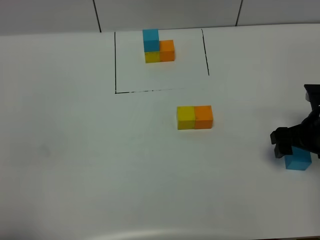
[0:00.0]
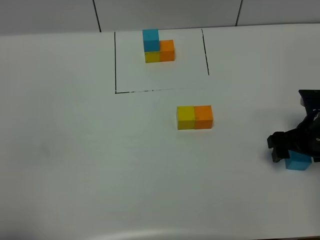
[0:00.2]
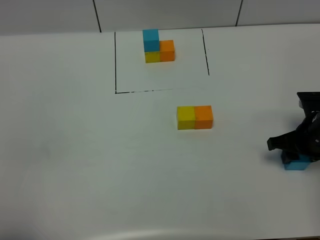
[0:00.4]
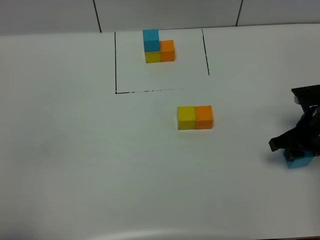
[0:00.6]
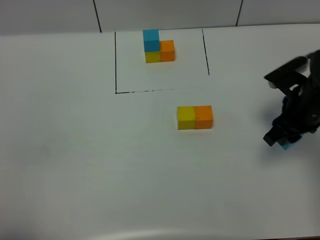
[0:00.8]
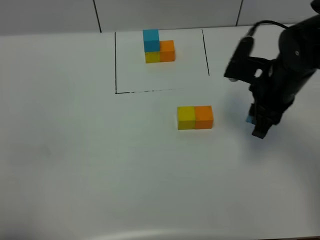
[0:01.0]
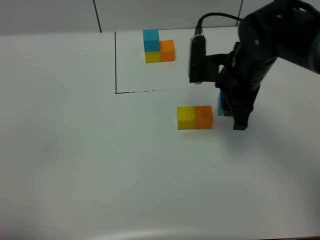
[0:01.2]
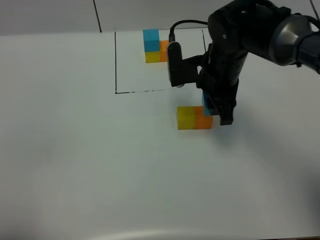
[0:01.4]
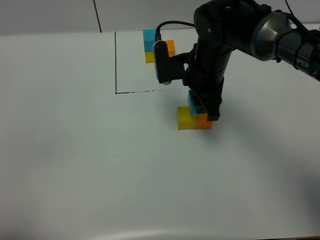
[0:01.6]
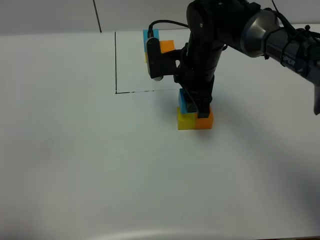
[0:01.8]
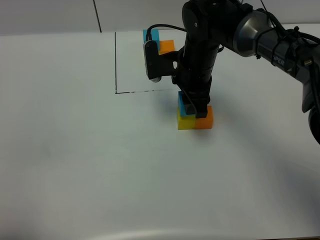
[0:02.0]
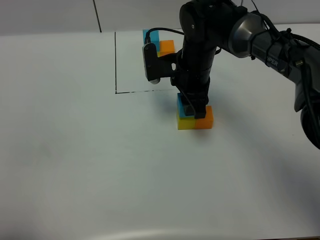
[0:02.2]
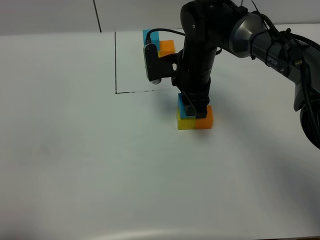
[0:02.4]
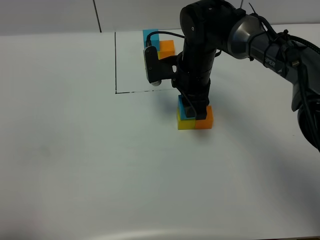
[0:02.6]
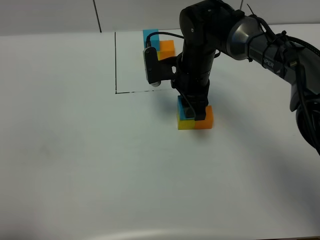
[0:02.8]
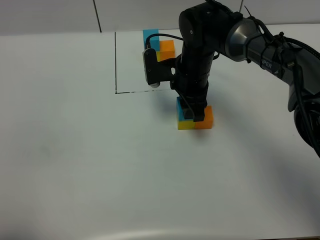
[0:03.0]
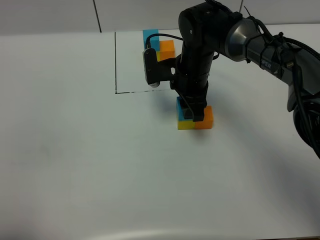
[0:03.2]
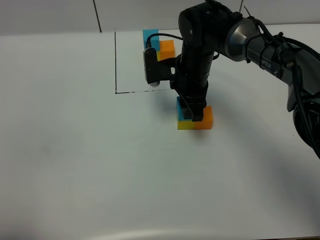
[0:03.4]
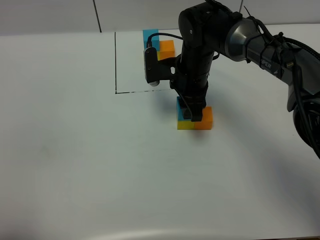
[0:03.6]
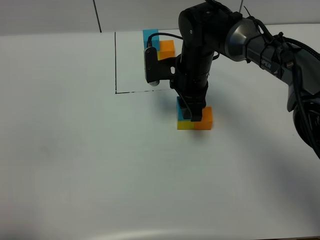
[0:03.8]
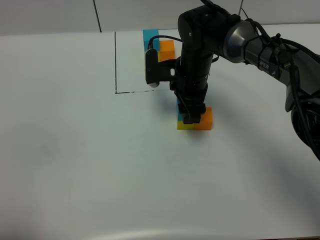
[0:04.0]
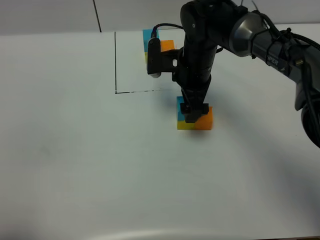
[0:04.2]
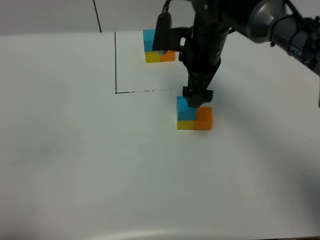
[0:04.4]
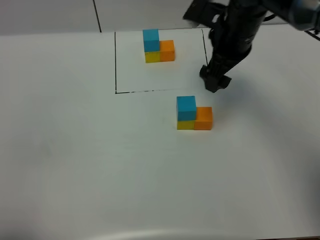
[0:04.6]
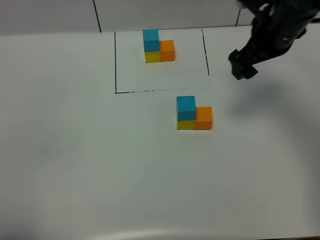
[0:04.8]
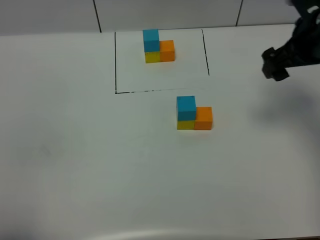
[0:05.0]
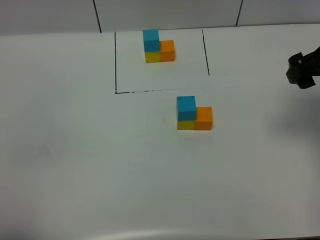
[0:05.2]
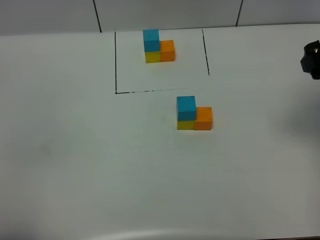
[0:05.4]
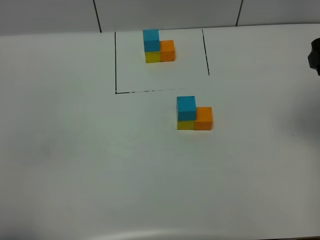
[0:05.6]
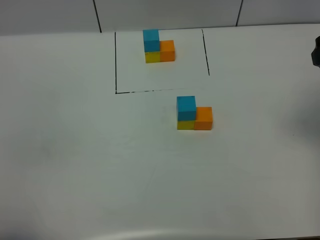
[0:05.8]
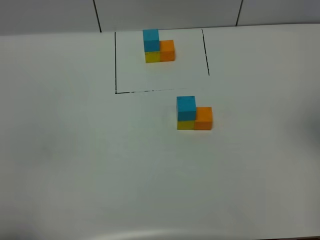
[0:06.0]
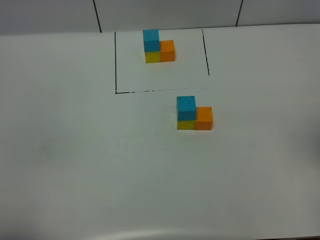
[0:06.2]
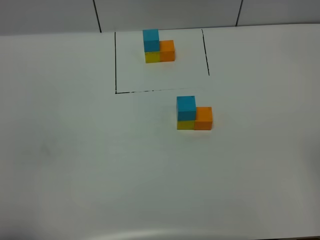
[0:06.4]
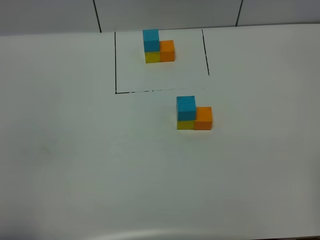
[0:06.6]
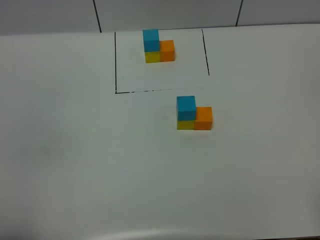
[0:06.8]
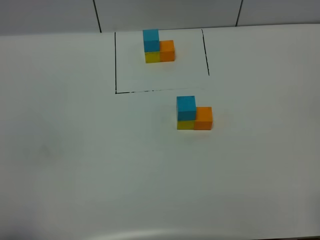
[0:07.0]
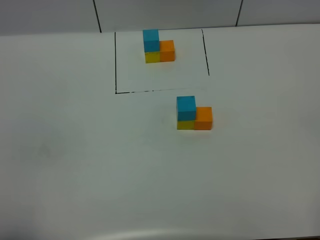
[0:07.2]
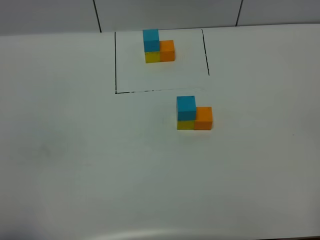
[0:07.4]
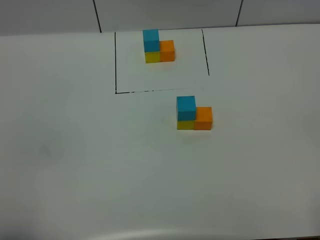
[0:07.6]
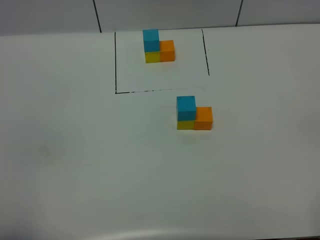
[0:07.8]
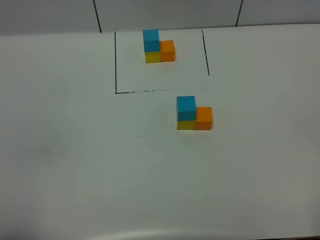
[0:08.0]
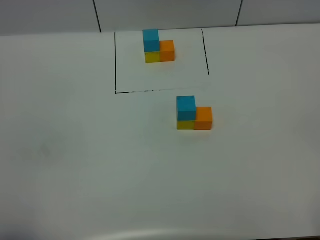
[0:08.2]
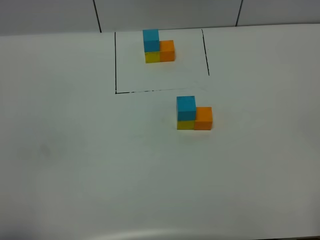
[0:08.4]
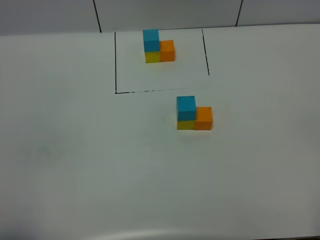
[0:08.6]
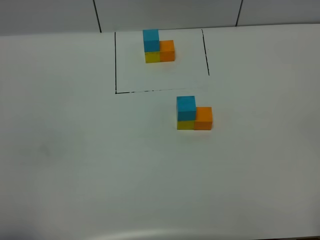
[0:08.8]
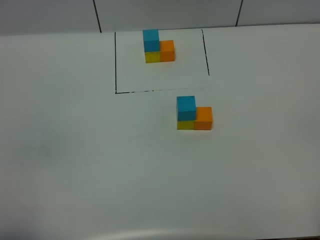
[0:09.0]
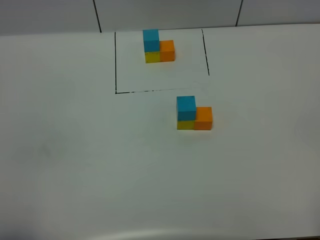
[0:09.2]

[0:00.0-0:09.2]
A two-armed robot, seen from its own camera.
Task of the whole recording: According to the building block template in front, assemble the scattered blocks together.
Step, 0:00.0 to 0:04.2: Put the blue cube on the yellow cube.
0:00.0 to 0:01.6: The right gripper travels to the left and forward by some 25 cm, and closes.
0:01.6 to 0:03.0: The grippers stay close to where they were, moving slightly.
0:03.0 to 0:04.6: The right gripper goes about 15 cm upward and to the right, and opens its fingers.
0:04.6 to 0:06.2: The right gripper shifts some 30 cm backward, to the right and upward.
0:07.6 to 0:09.2: Both grippers stay put.

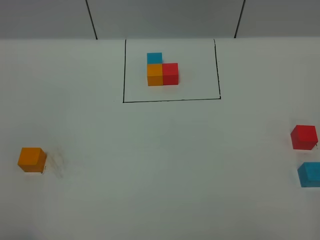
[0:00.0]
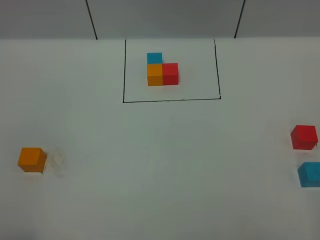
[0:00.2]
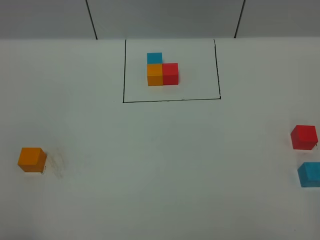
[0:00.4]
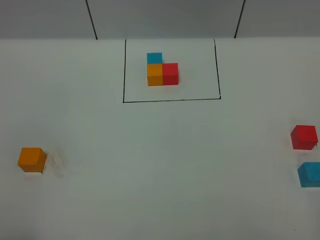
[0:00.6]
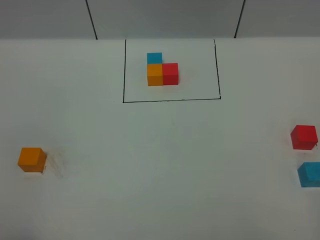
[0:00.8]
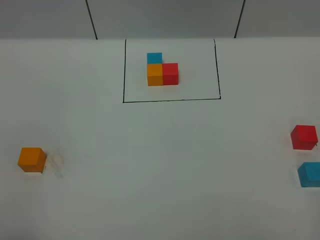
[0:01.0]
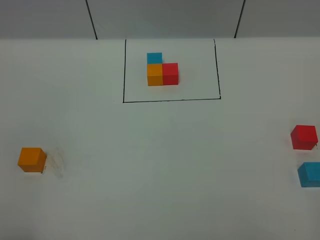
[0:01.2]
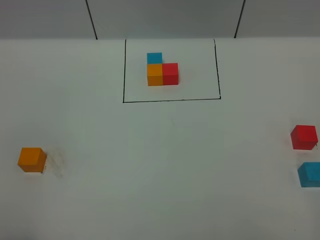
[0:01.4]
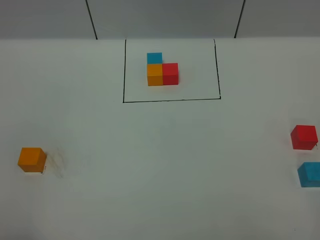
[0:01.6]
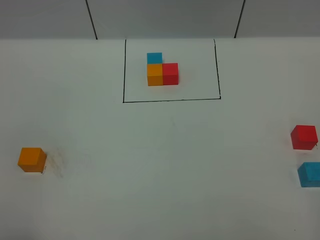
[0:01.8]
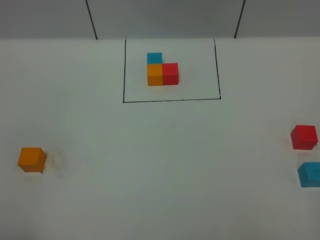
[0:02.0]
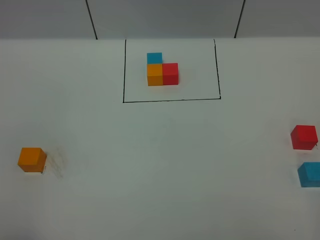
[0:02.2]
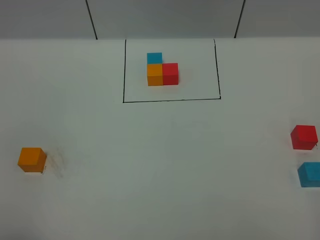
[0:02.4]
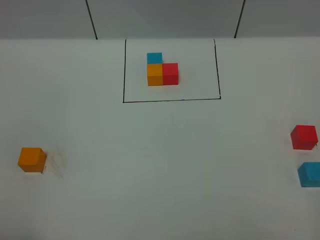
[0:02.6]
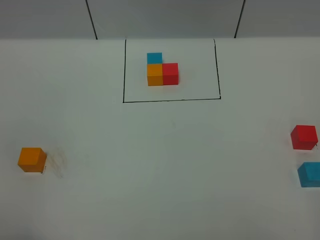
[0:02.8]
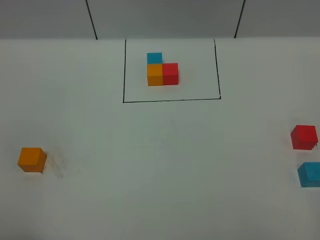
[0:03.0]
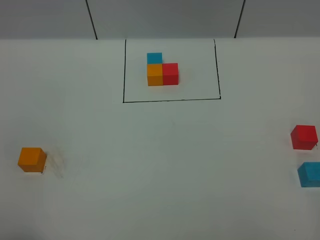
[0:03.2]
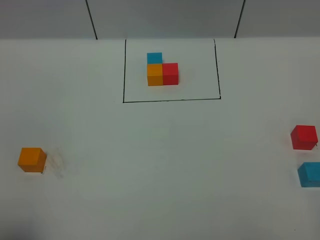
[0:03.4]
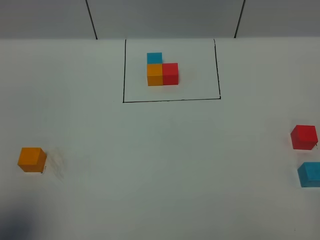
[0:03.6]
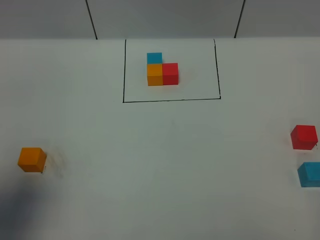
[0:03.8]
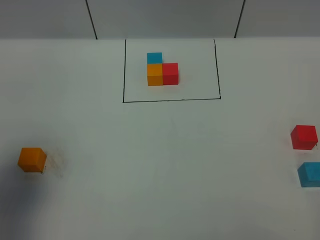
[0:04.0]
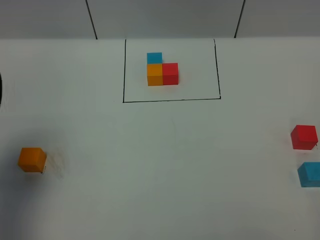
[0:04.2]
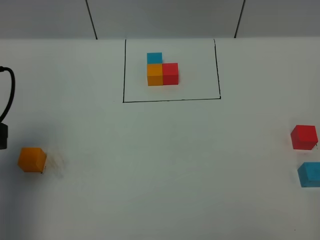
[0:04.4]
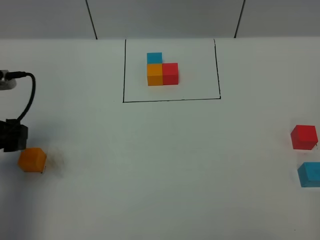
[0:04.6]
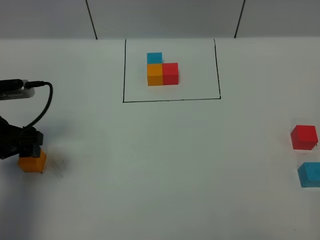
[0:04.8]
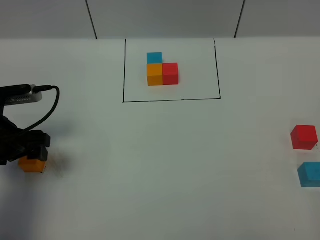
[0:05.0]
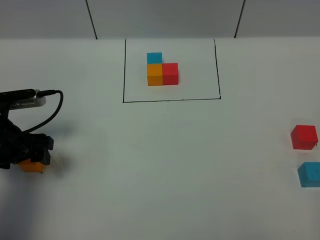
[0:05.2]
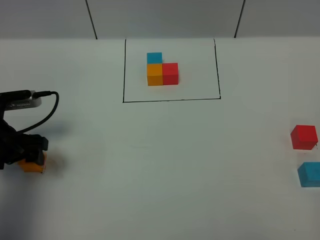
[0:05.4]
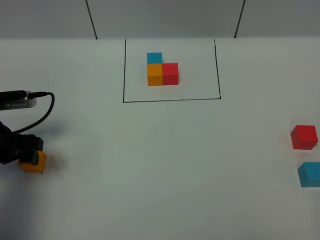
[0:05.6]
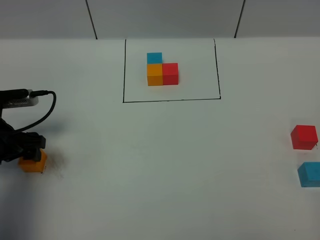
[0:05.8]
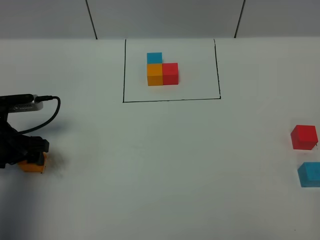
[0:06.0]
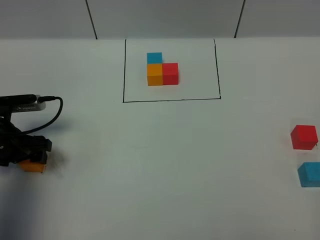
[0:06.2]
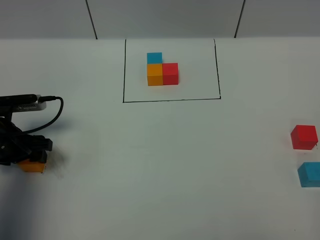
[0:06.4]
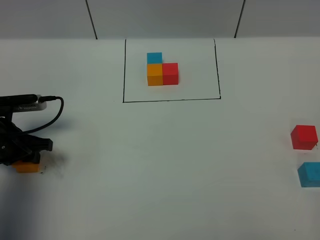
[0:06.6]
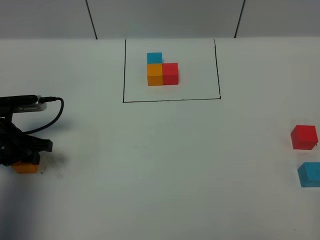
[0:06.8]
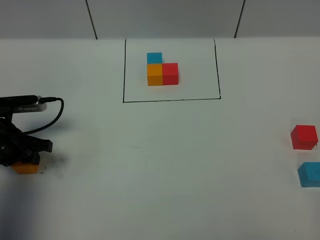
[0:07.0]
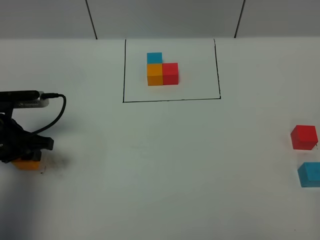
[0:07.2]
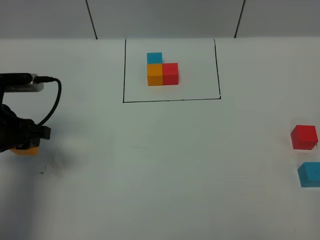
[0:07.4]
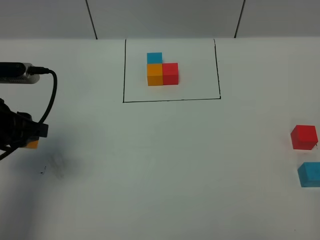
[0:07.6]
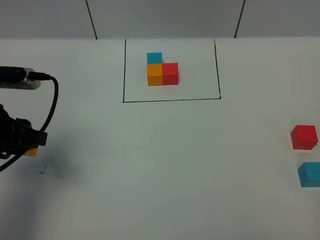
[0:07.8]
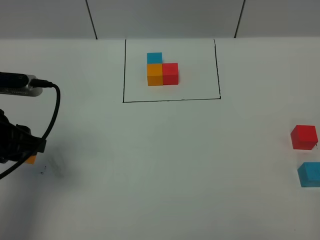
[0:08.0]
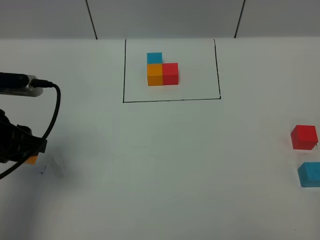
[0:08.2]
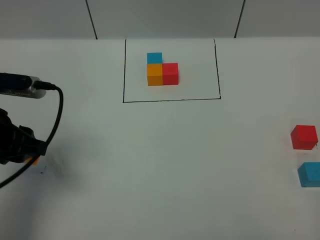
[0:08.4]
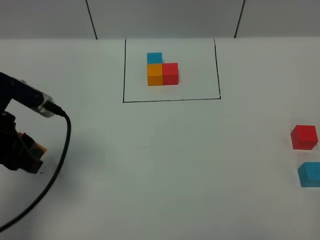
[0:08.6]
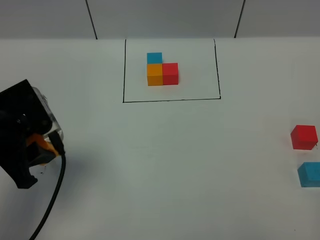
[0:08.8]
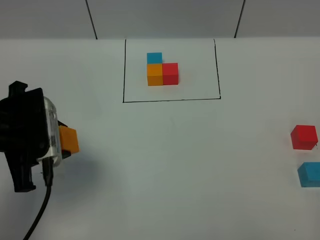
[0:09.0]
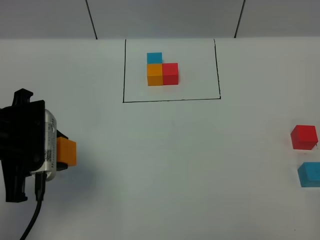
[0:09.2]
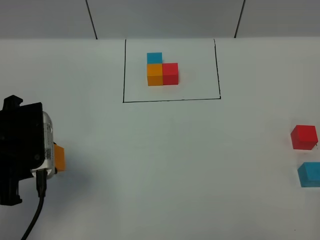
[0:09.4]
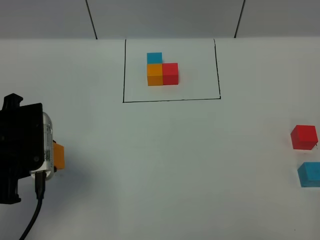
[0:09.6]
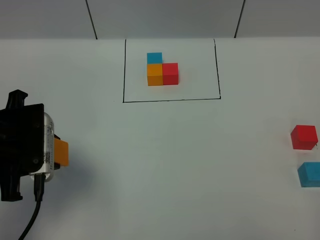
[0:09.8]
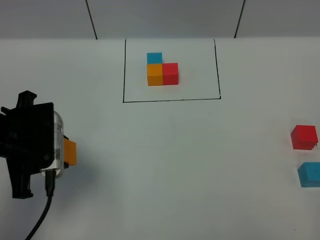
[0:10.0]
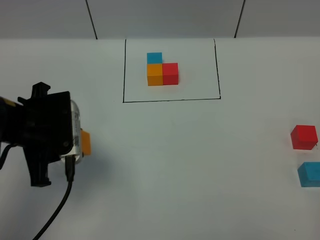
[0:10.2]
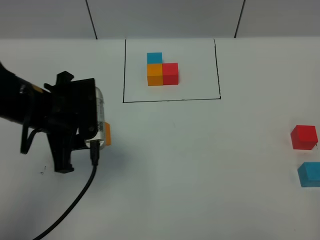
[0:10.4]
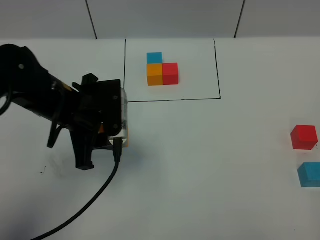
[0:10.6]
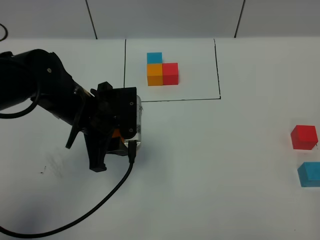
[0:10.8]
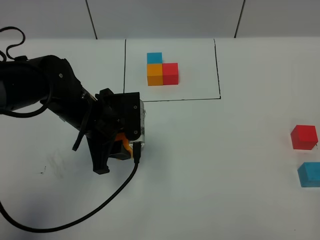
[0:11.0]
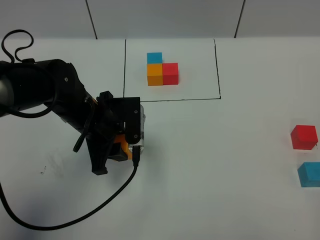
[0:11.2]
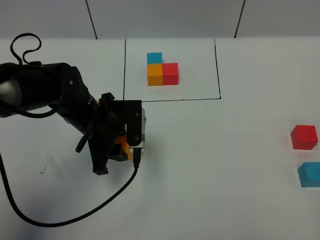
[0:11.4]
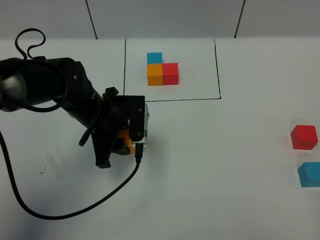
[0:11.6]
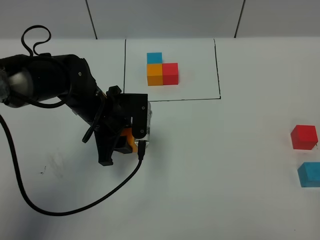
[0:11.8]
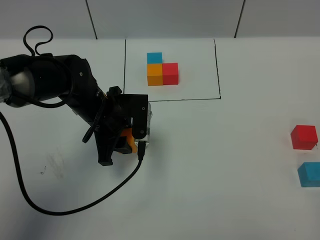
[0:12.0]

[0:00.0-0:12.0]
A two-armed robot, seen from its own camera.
Task of the whole recording: According to the building block template in front, assemble the scattered blocks together.
0:00.0 to 0:01.6: Both grippers stay put.
0:03.0 to 0:04.4: The left gripper shifts approximately 25 cm forward.
0:04.4 to 0:06.0: The left gripper heads downward and forward, covering some 10 cm.
0:06.0 to 0:07.6: The left gripper is displaced upward by approximately 10 cm, and closes up.
0:09.0 to 0:10.4: The left gripper heads to the right, covering some 5 cm.
0:10.4 to 0:12.0: The left gripper travels downward, forward and to the right by roughly 10 cm.

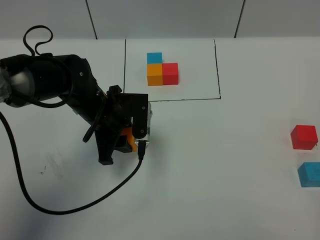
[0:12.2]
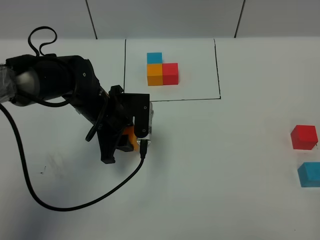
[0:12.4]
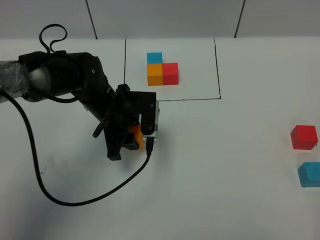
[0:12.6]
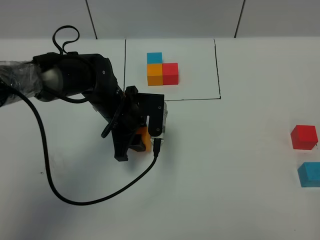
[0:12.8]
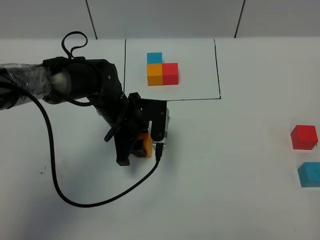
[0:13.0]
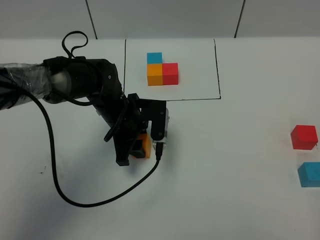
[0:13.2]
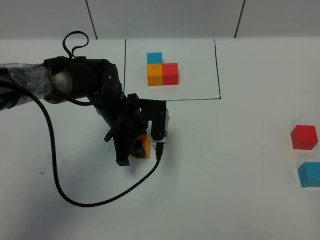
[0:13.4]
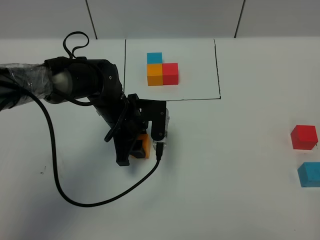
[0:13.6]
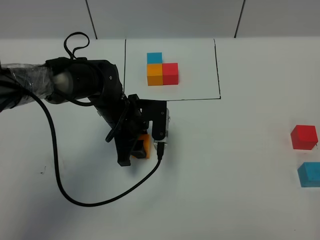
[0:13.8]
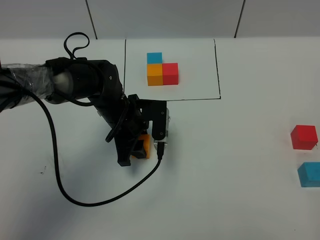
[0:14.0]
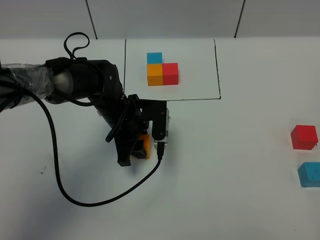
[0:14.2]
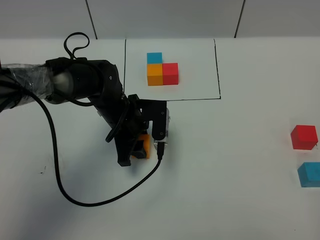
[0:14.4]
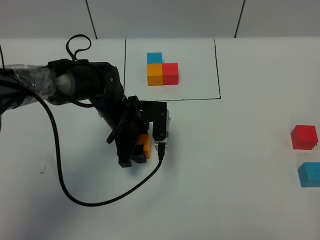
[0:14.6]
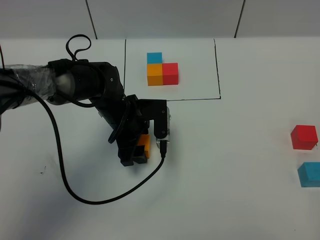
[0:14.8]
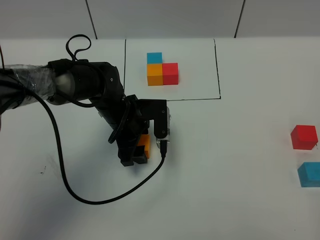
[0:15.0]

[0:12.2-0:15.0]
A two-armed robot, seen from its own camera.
Task of the whole recording: According to the building block template in front, assemble the scattered blocks together.
Step, 0:12.2 to 0:14.8: Put the orange cube in the center of the table.
0:12.2 to 0:13.6: The left gripper ends up about 5 cm from where it was.
0:13.6 to 0:15.0: The two grippers keep their place.
